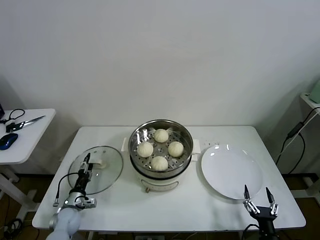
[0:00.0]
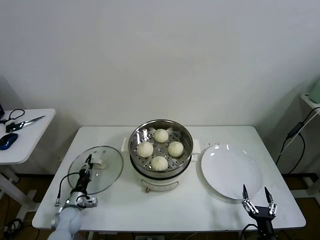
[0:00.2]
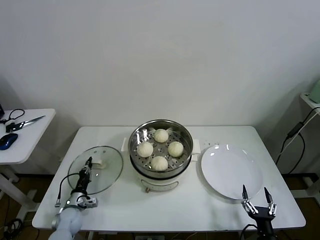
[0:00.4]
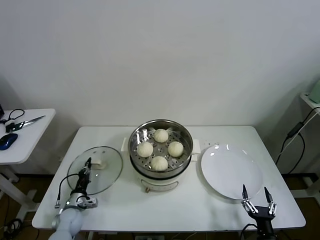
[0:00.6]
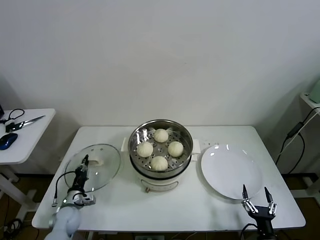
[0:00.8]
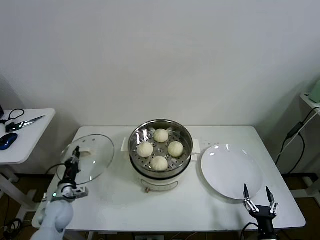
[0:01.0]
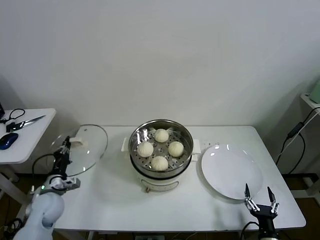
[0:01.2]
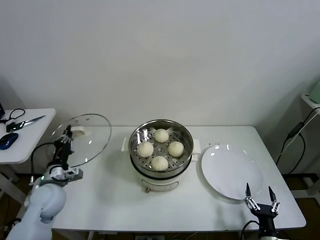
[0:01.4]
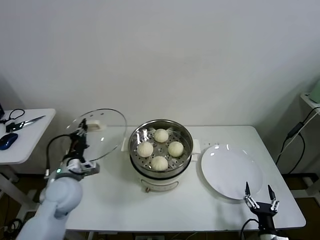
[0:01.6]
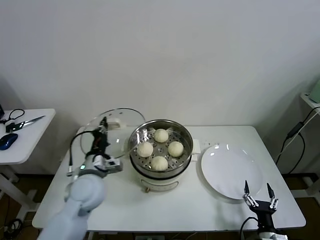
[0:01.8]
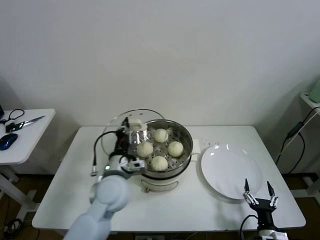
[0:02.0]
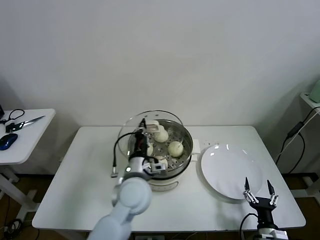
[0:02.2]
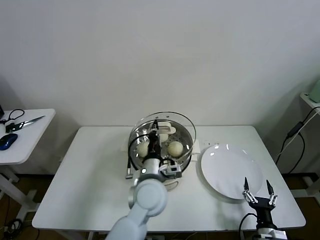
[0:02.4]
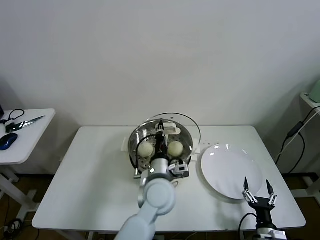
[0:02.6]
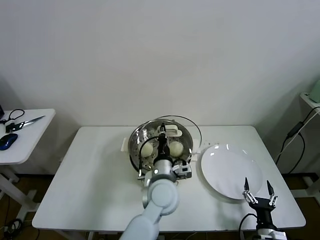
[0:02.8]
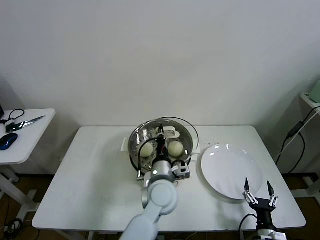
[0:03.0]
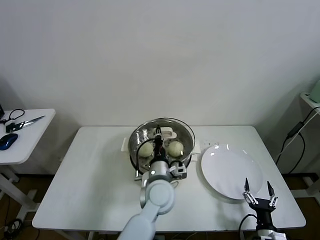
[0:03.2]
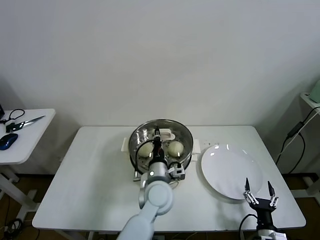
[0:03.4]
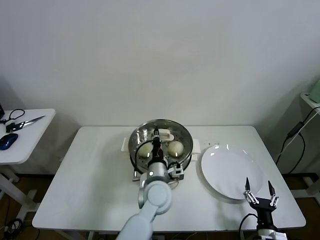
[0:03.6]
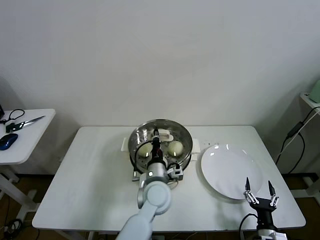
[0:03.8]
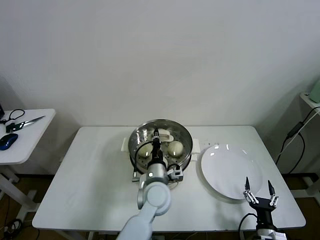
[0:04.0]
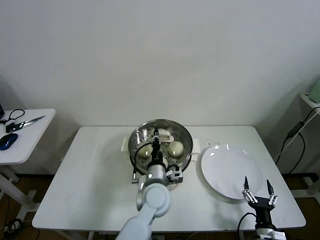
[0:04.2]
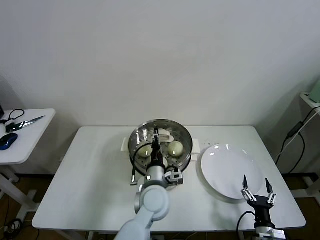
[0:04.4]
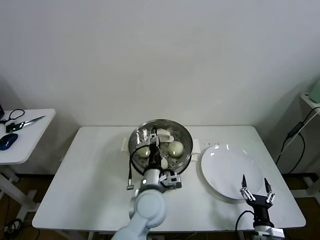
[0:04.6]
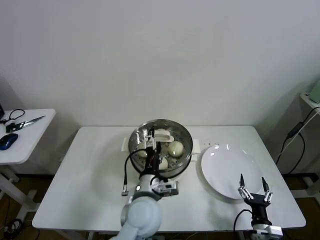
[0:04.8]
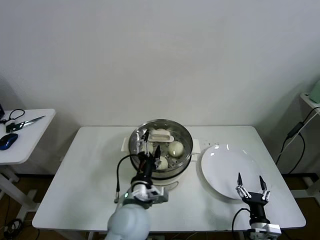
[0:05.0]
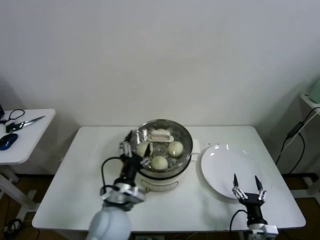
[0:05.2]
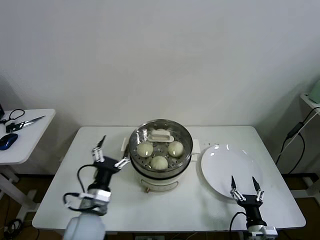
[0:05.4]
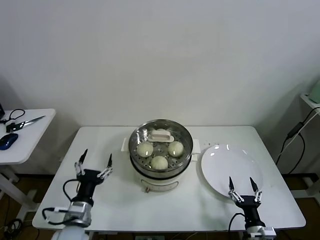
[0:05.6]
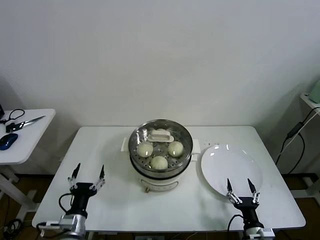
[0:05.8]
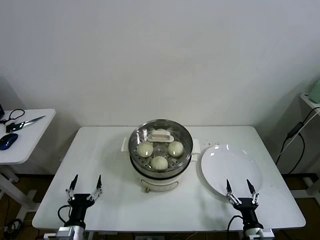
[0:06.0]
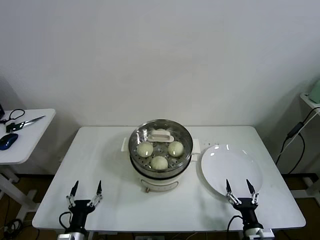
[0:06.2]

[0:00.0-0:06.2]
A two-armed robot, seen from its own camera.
Task of the whole recording: take steamed baozi put them in steamer then cover it.
Step, 0:00.8 to 0:04.2: Place the pot lid on the steamer with left gripper.
0:00.0 to 0:01.6: The left gripper moves upward, approximately 25 cm, and closes up.
0:01.6 to 0:03.2: The left gripper shifts approximately 30 cm to the right.
0:03.2 to 0:04.6: The left gripper opens its fingers.
0:04.6 to 0:06.2: The left gripper shifts about 35 cm to the left, downward and backward.
